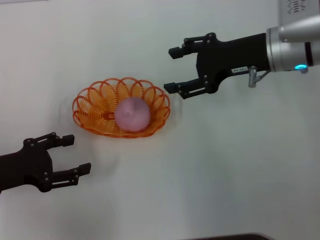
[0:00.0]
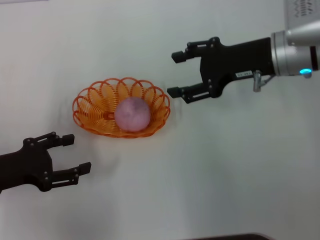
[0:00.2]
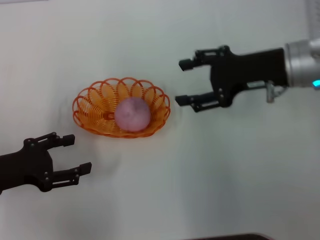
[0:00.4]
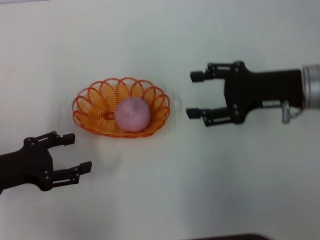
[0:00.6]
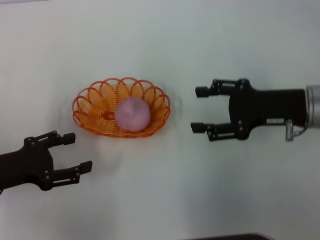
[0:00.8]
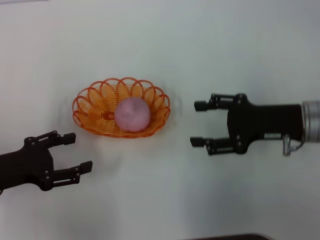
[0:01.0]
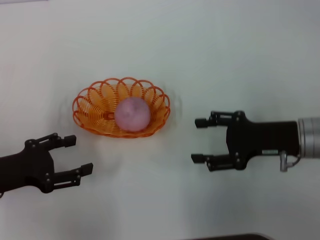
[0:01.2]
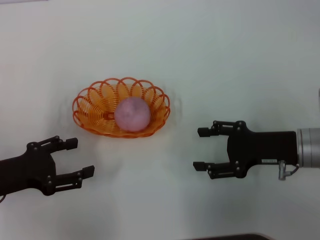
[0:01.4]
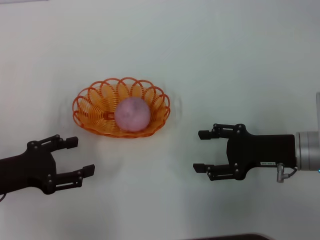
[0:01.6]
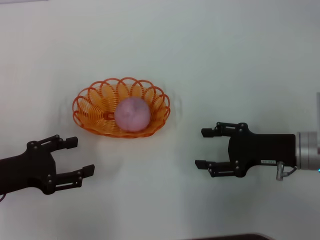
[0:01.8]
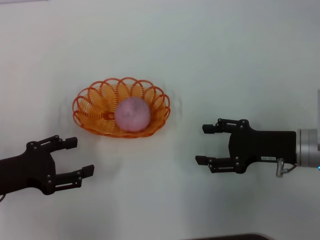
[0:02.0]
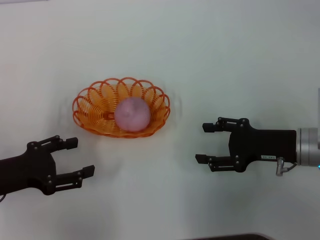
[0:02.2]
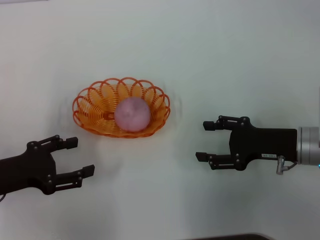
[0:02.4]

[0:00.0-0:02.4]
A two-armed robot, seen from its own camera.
0:00.0 to 0:01.2: The right gripper moves backward and downward, approximately 15 cm.
0:01.2 to 0:02.4: The grippers make only small movements.

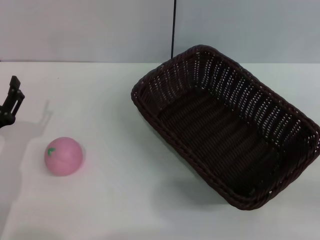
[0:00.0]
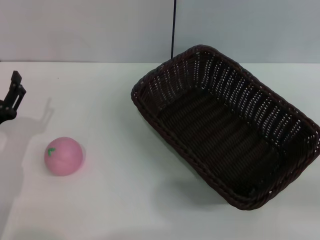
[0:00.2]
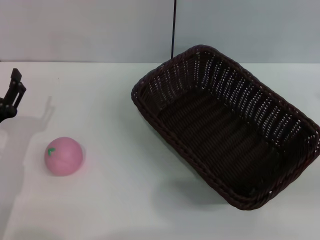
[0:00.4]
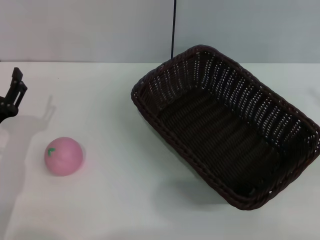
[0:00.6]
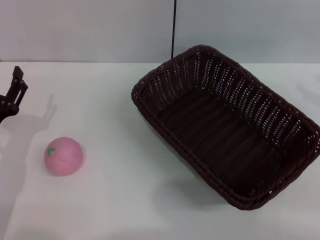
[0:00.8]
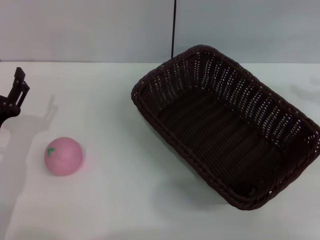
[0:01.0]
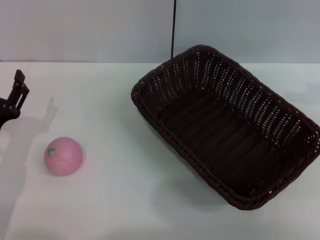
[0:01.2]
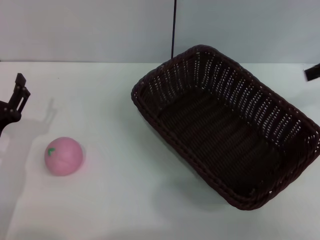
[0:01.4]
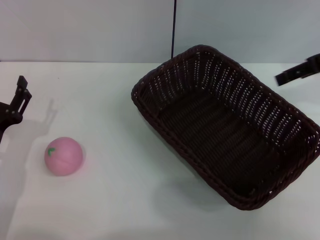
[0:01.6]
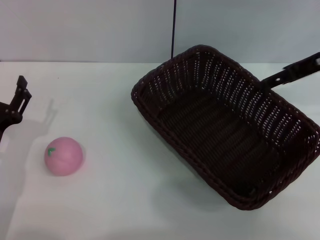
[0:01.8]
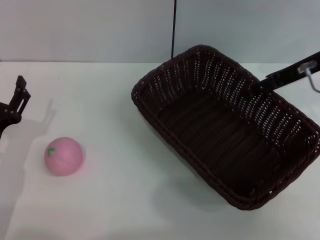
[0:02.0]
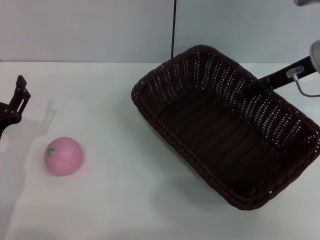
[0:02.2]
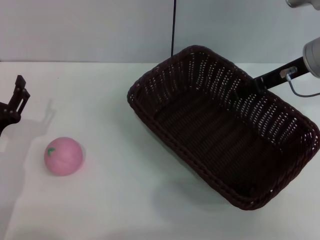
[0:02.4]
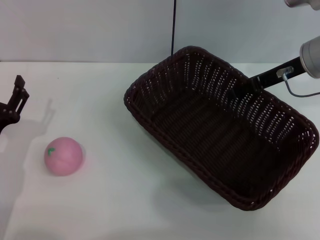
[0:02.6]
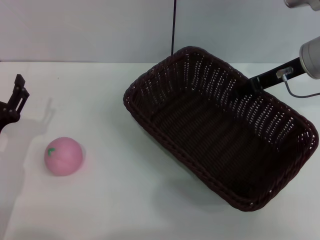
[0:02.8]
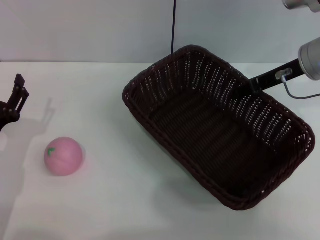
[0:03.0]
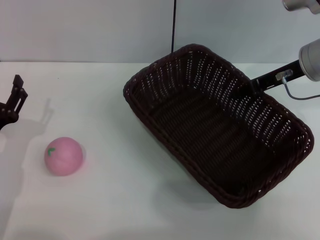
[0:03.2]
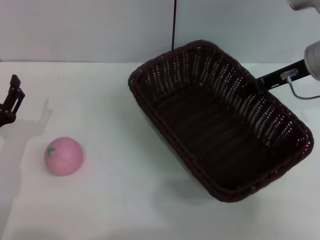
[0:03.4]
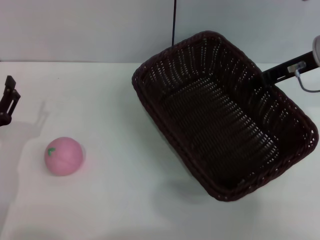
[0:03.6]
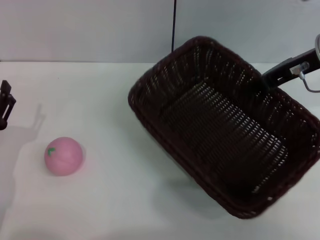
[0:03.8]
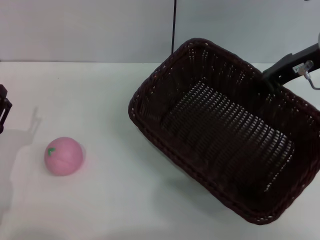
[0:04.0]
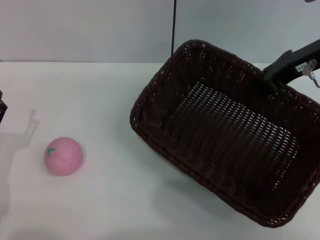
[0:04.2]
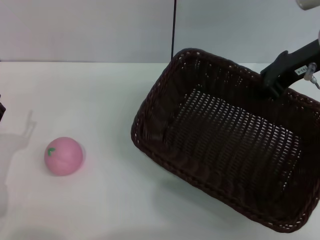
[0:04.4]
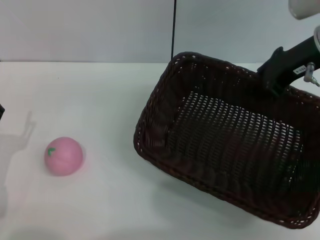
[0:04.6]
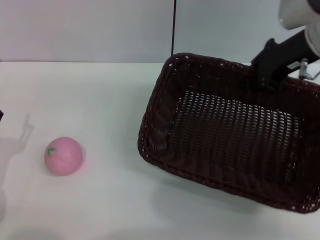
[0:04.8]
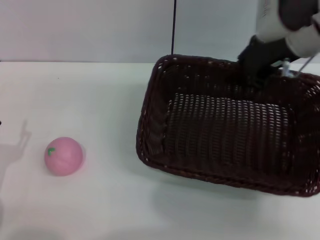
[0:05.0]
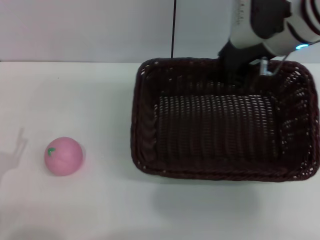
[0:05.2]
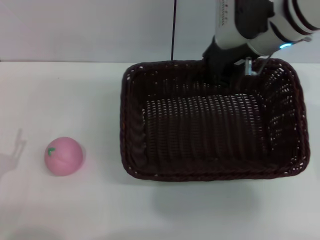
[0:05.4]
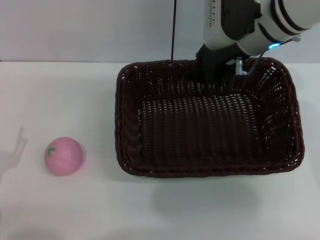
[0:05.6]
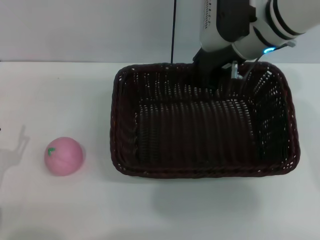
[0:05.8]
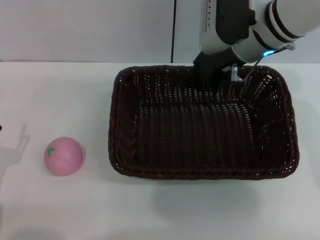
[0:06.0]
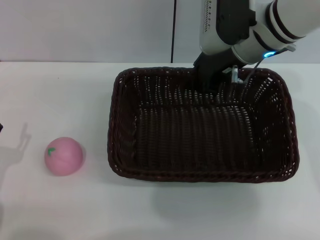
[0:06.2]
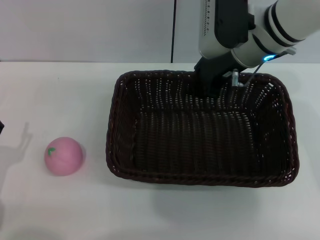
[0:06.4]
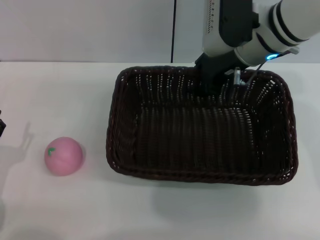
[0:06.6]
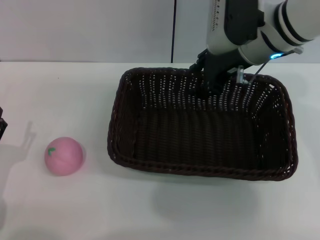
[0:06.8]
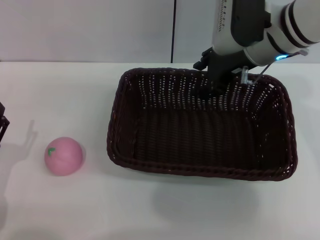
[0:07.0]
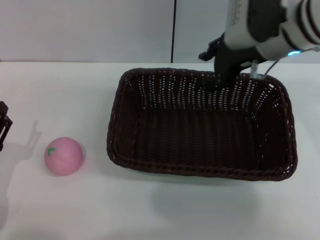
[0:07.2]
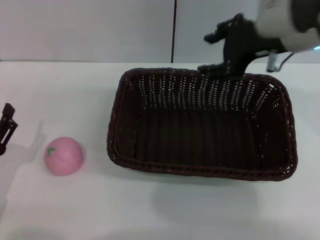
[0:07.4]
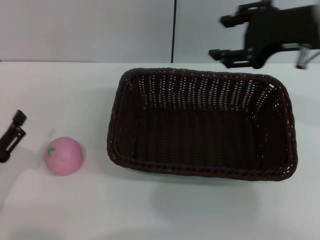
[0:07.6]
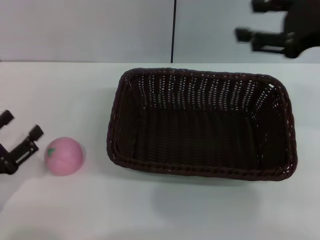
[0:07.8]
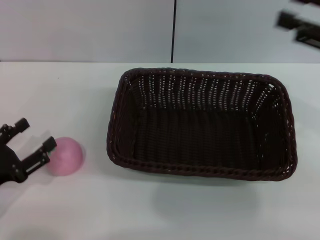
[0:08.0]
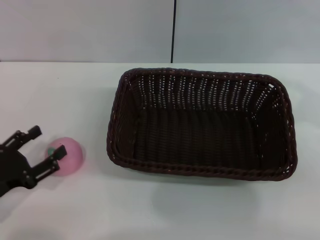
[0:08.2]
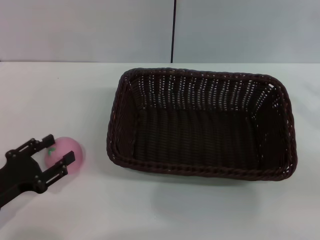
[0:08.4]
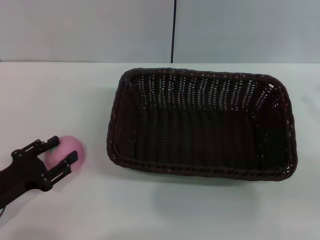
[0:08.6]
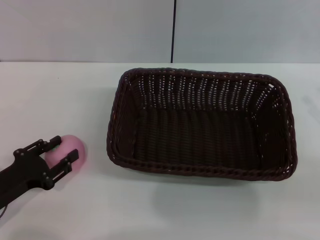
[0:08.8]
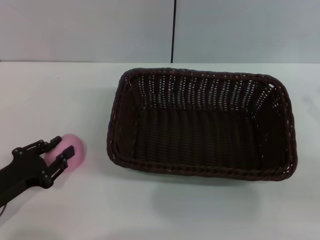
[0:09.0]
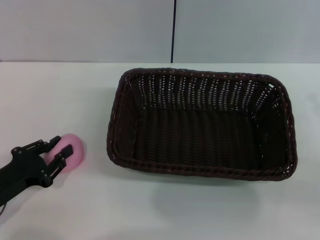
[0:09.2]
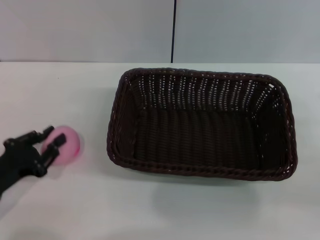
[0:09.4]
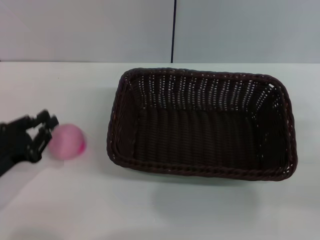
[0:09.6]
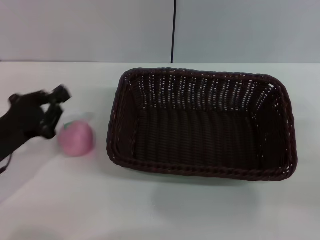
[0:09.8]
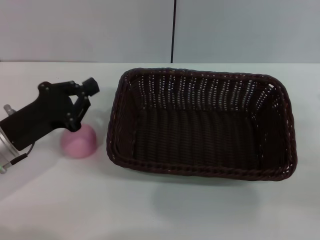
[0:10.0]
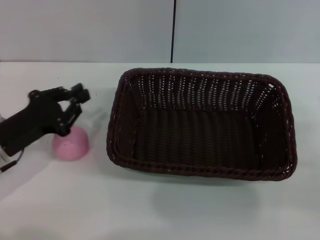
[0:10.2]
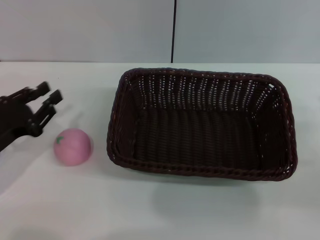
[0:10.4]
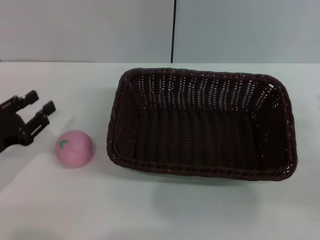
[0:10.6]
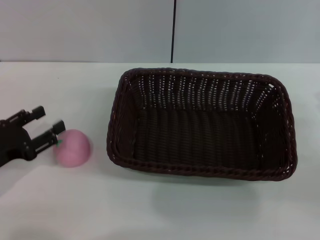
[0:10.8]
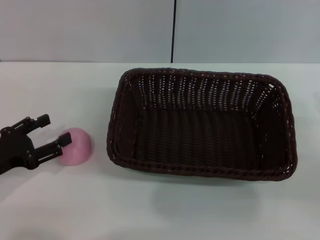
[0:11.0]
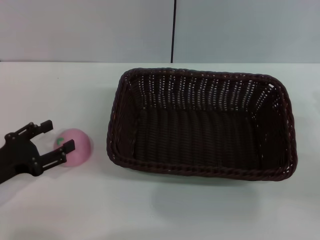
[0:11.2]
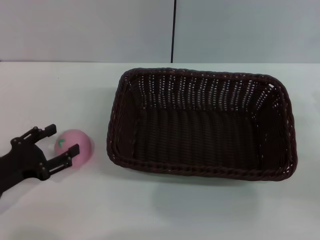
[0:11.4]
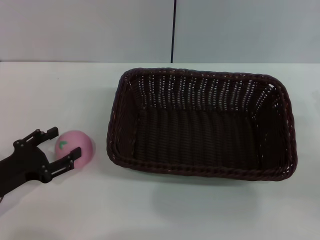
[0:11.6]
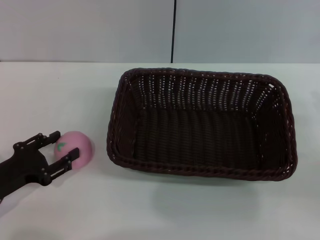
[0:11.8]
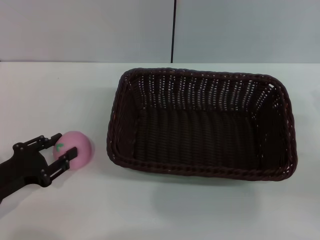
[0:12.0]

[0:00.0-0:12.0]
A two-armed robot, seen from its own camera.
Step, 0:00.0 to 0:04.0: Pick up the dark basket with the right gripper.
Step, 0:04.2 to 0:07.6: Place the dark basket in the center of view with the right gripper.
0:00.0 to 0:01.6: The right gripper moves forward, upward and to the left, some 25 cm.
0:01.6 to 0:03.0: The right gripper is displaced downward and to the left by some 10 cm.
0:03.0 to 0:04.4: The right gripper goes some 5 cm upward, and closes up.
0:04.4 to 0:06.0: The right gripper travels to the left by about 10 cm.
0:06.0 to 0:07.6: The right gripper goes some 15 cm backward, to the right and upward, and opens up.
0:07.6 to 0:09.0: The right gripper heads to the right, downward and backward, covering about 25 cm.
0:09.0 to 0:10.4: The left gripper closes.
0:10.4 to 0:12.0: The left gripper opens.

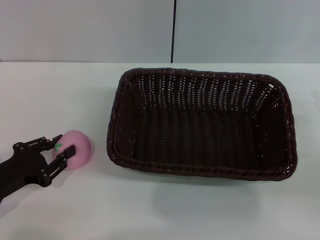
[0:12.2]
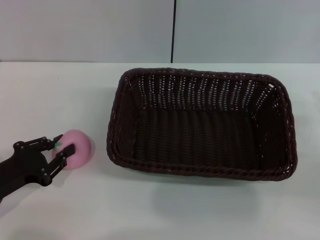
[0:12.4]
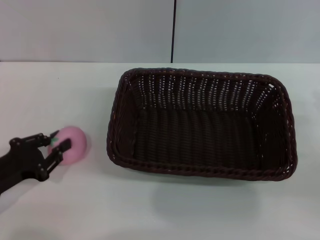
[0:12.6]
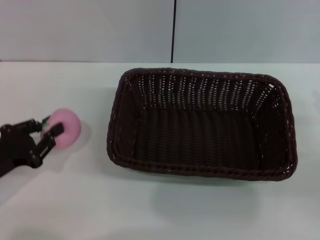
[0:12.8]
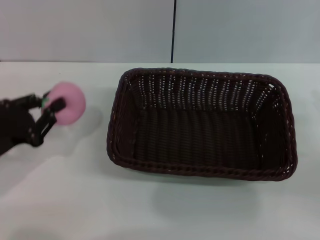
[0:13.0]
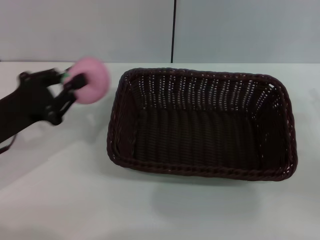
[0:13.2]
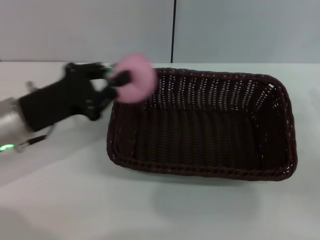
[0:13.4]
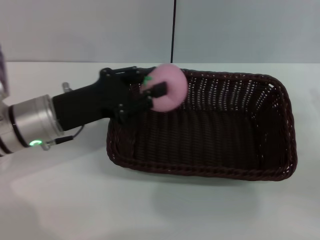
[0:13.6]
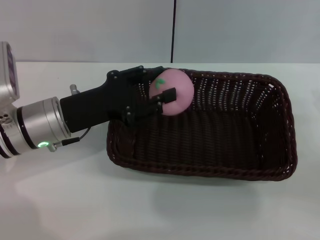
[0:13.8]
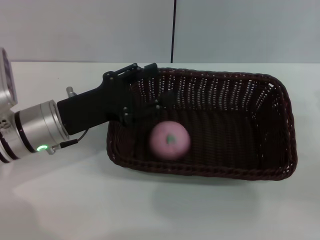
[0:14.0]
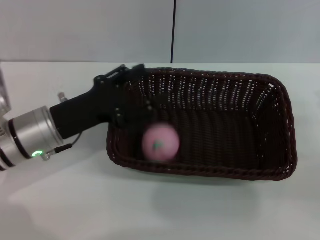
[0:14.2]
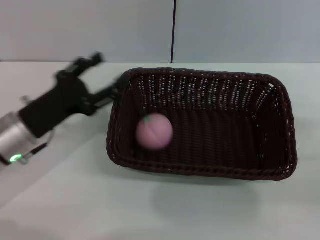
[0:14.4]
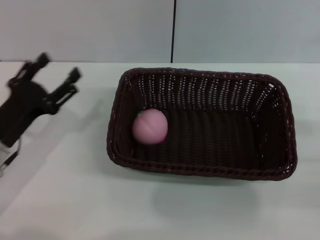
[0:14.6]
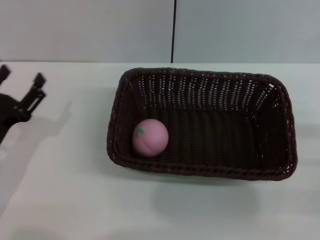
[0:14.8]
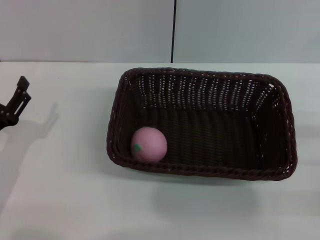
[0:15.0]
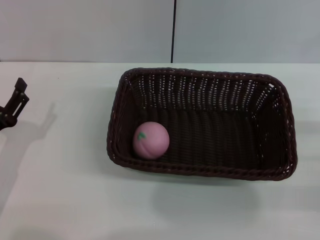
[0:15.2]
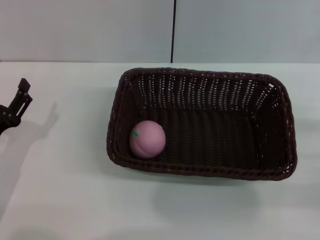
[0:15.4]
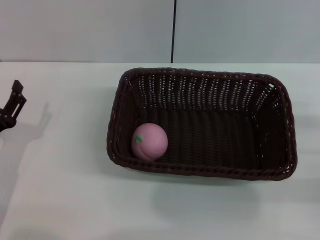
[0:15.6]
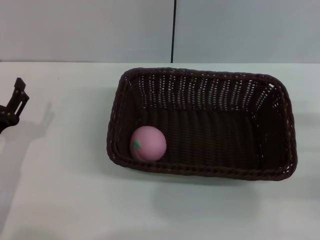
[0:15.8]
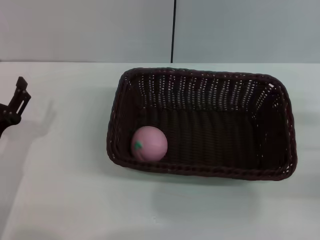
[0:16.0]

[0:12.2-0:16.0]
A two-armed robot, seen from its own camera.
Step, 0:13.2 to 0:14.4: Place the peach into the basket with the left gripper.
0:12.2 to 0:13.4: The left gripper is displaced forward, upward and to the right by approximately 15 cm, and closes its fingers.
0:13.4 to 0:14.8: The left gripper heads downward, covering some 5 cm, and opens.
